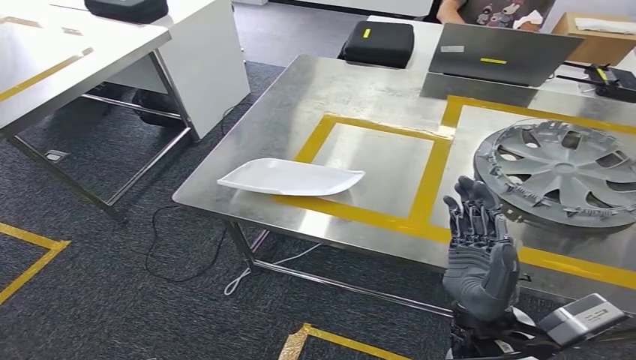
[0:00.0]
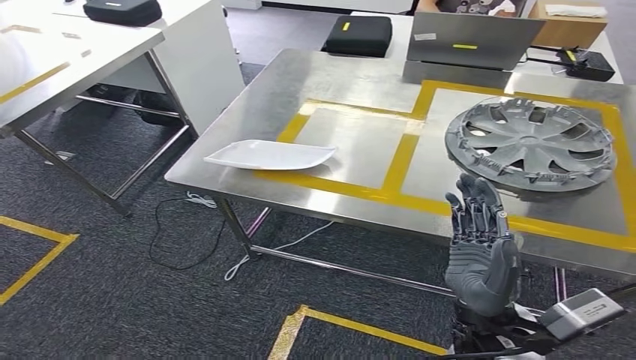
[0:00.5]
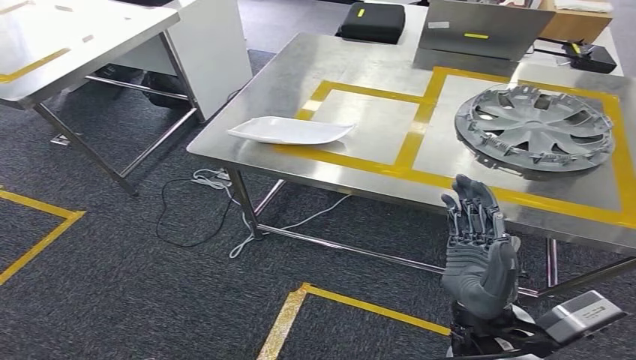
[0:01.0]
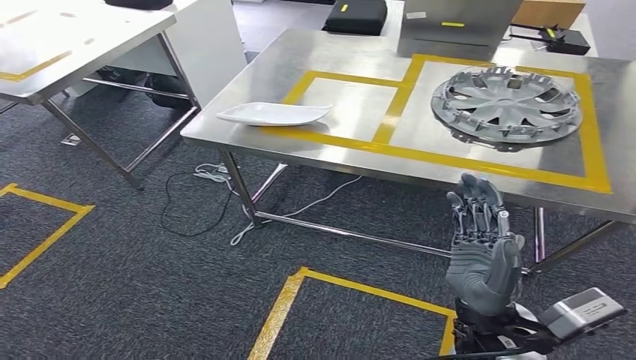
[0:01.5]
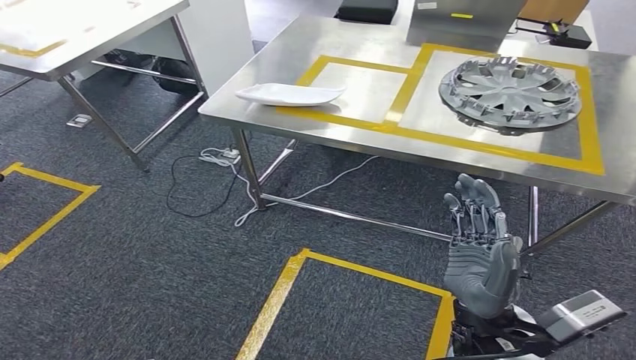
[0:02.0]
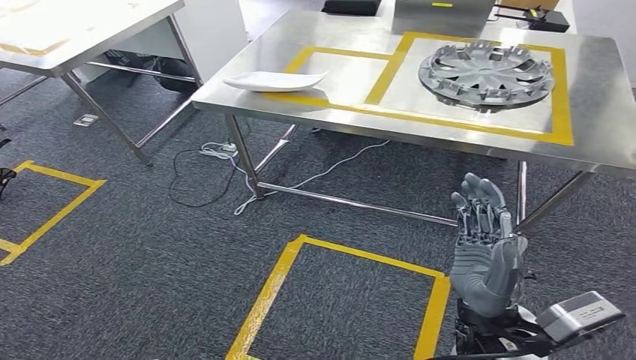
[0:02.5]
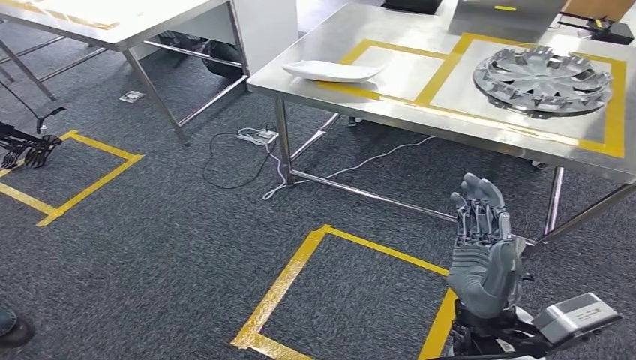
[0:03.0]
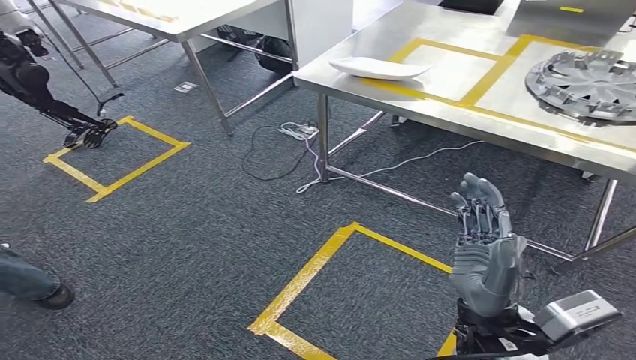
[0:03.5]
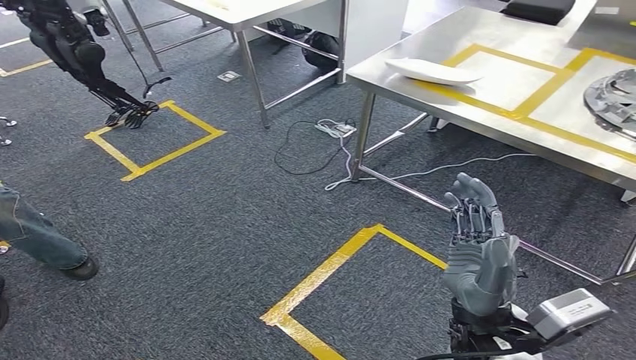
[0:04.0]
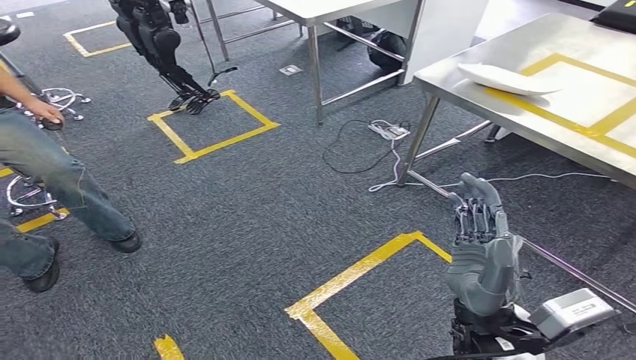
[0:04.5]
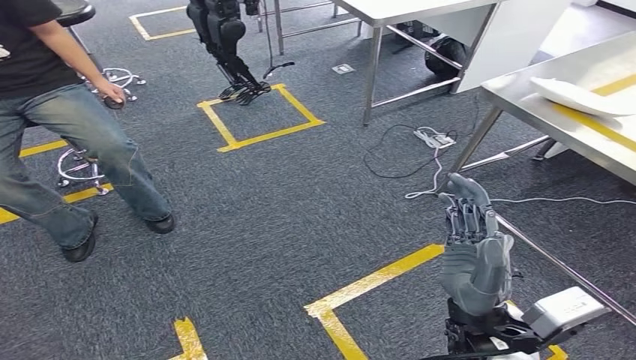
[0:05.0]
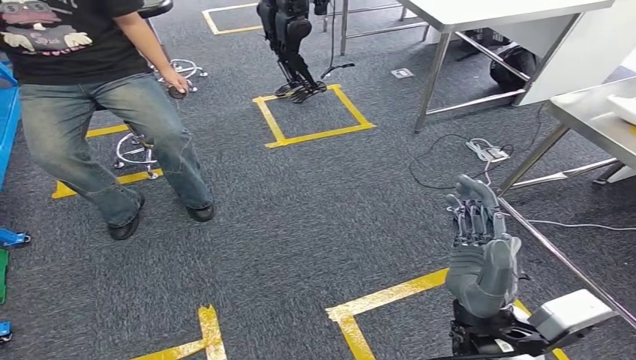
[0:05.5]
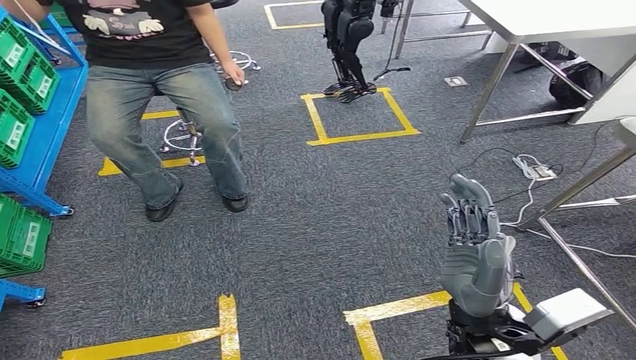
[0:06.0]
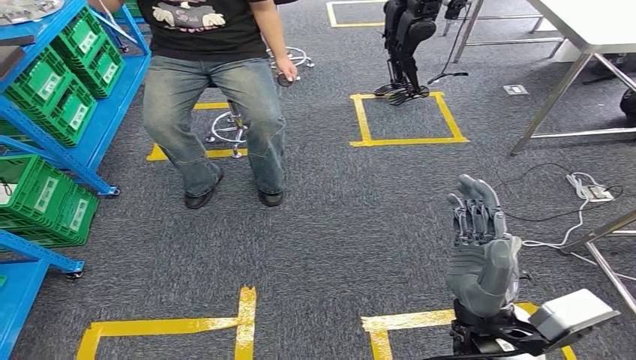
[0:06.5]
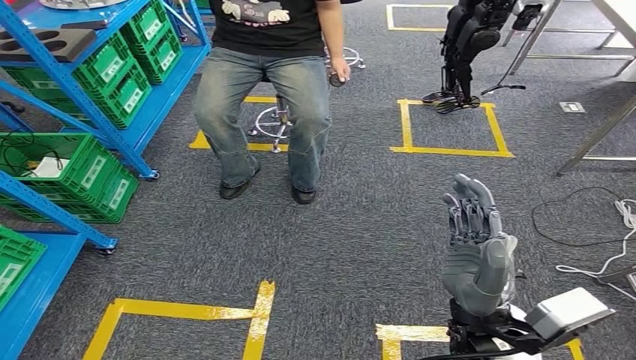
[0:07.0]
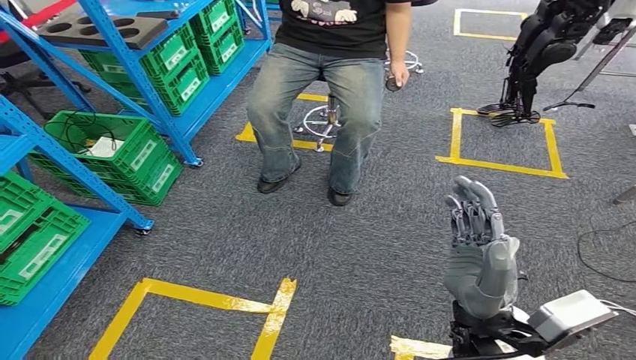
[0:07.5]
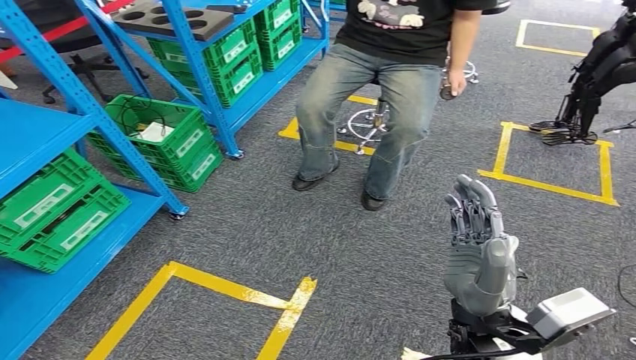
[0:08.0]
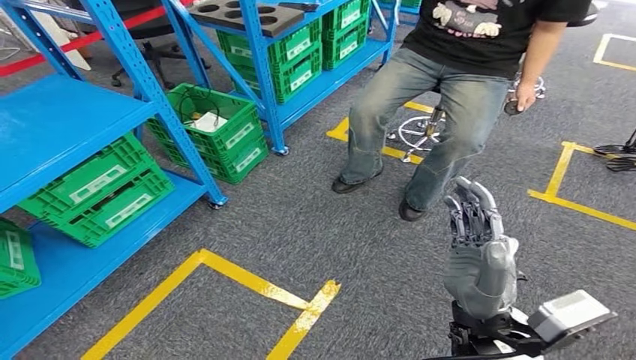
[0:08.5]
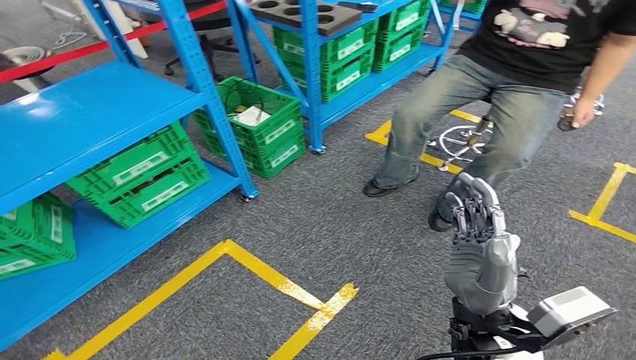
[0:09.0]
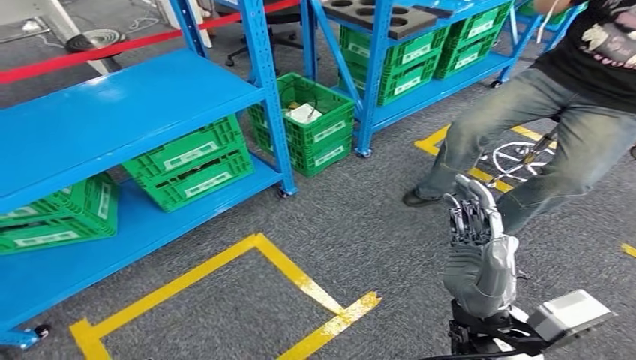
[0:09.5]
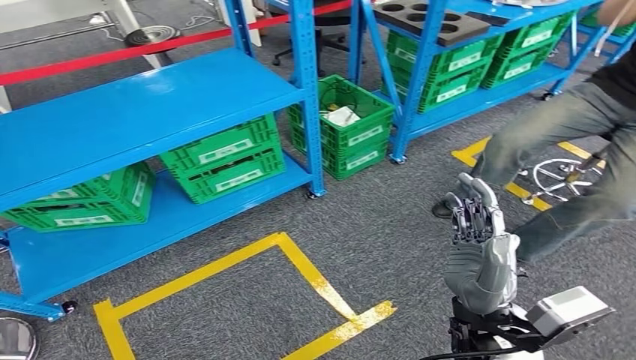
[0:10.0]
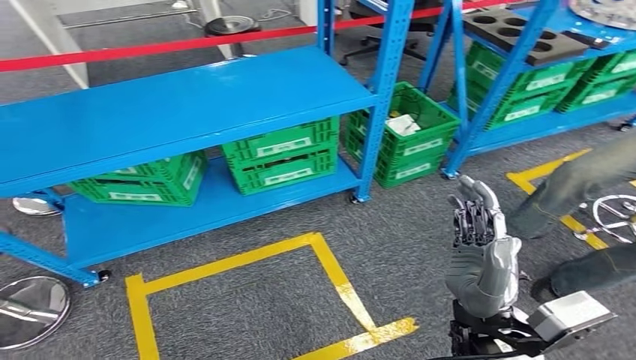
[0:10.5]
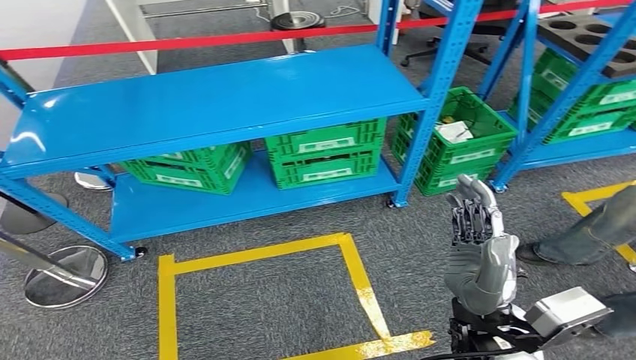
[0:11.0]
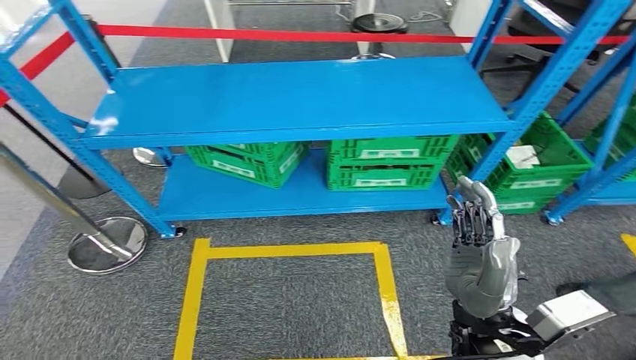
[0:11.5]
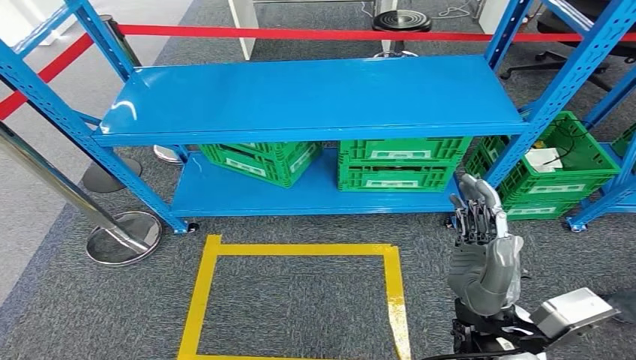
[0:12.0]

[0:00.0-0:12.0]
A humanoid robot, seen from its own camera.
Step, 0:00.0 to 0:12.0: Return to the initial position at the workbench.
